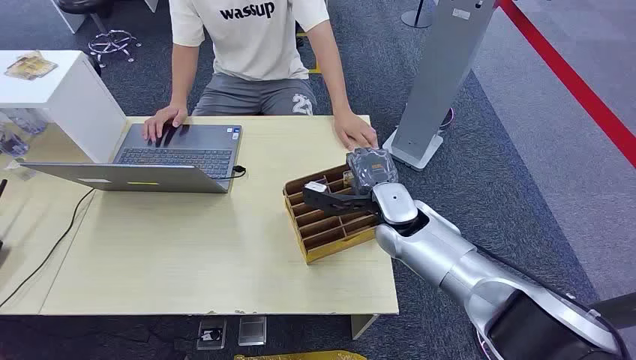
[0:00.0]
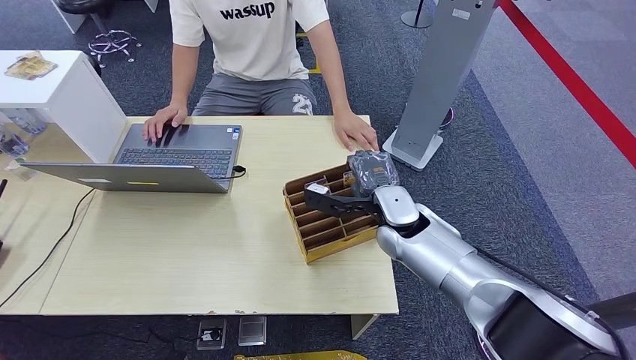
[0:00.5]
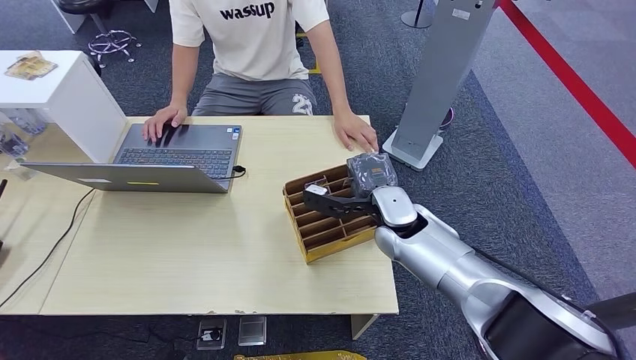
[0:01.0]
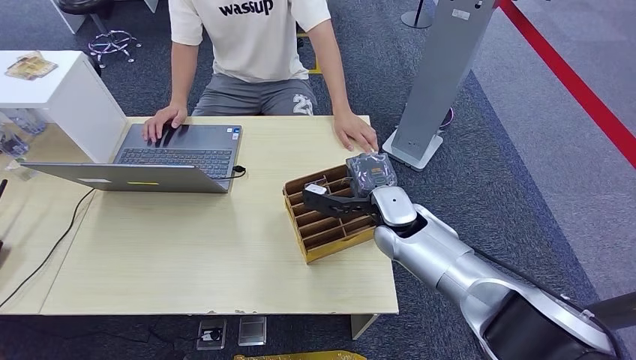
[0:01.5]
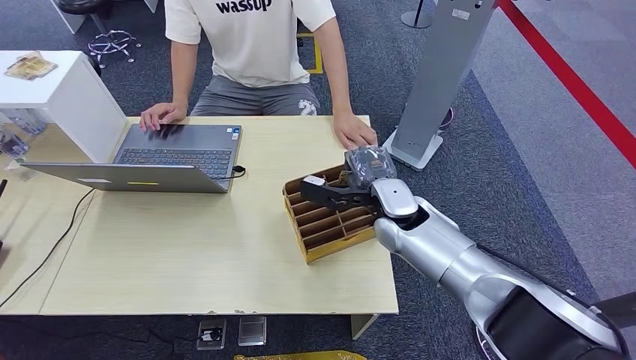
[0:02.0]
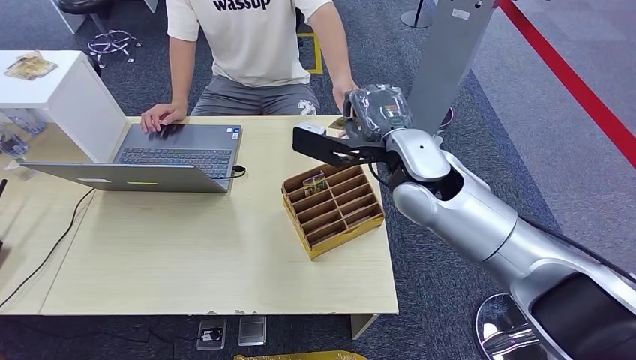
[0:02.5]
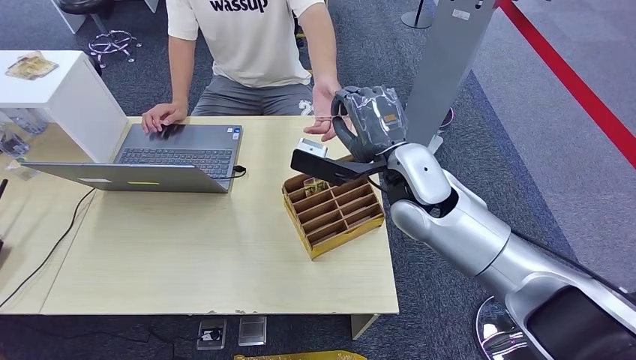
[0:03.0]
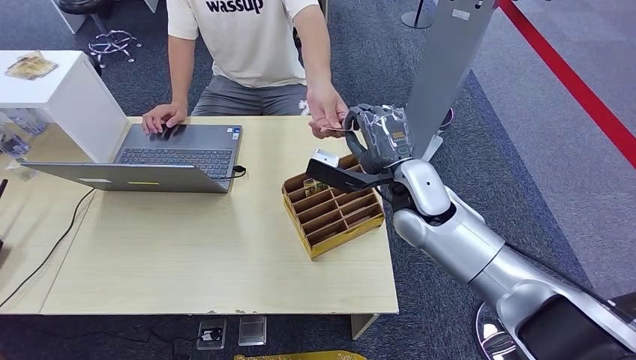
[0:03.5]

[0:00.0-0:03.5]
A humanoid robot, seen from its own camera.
Step, 0:00.0 to 0:02.0: Pick up the key card from the card box.
Step, 0:03.0 to 0:03.5: Hand the key card to the target.
0:02.0 to 0:03.5: The right hand heads upward, covering roughly 5 cm.

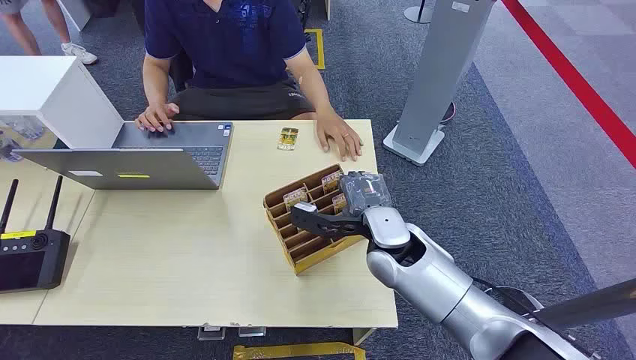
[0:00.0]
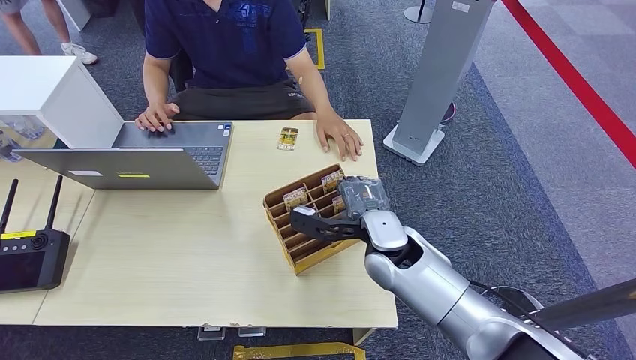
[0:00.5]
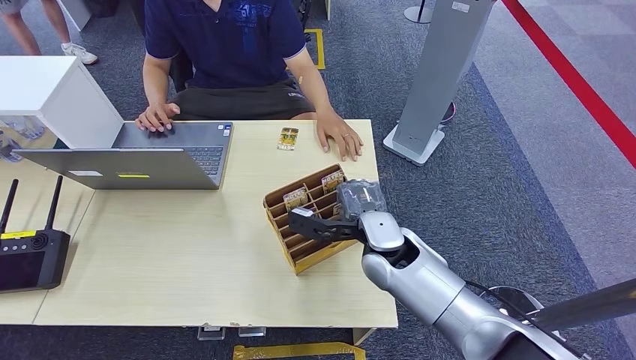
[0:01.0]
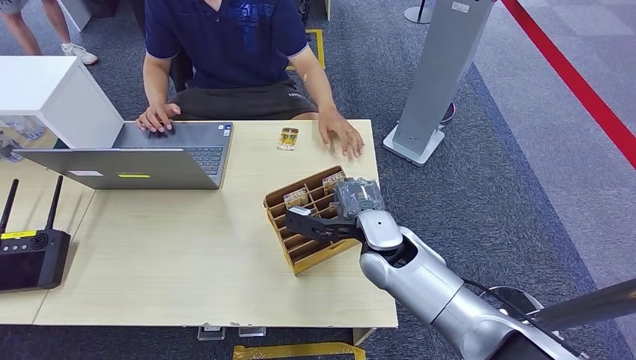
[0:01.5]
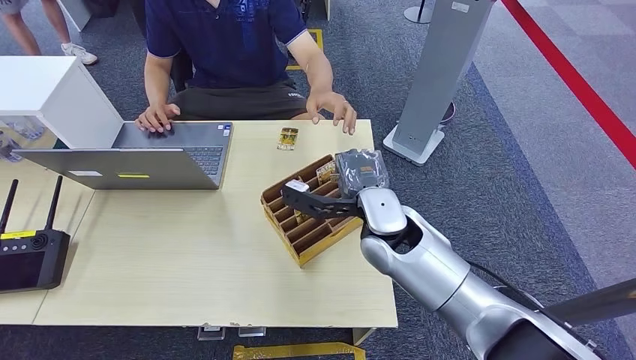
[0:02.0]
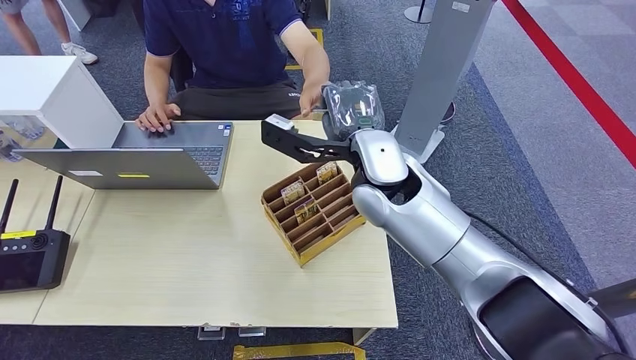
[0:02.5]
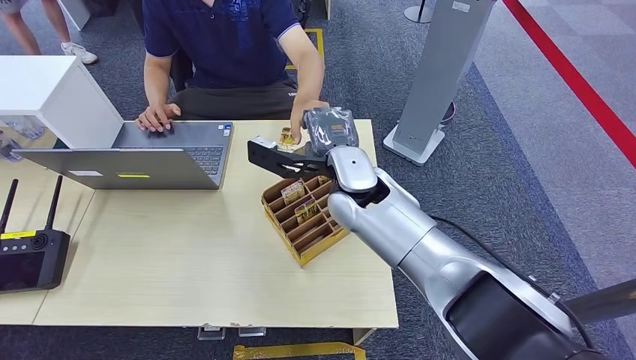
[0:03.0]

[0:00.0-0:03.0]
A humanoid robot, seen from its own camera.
Step, 0:00.0 to 0:02.0: Pick up the key card from the card box.
0:01.5 to 0:03.0: The right hand is displaced upward, to the left and forward by about 10 cm.
